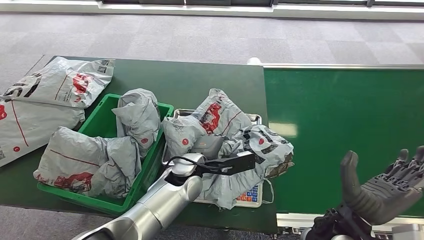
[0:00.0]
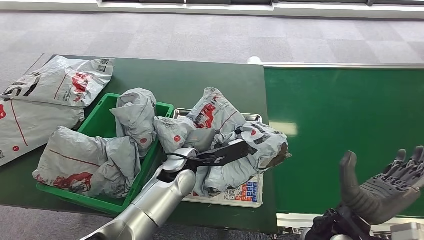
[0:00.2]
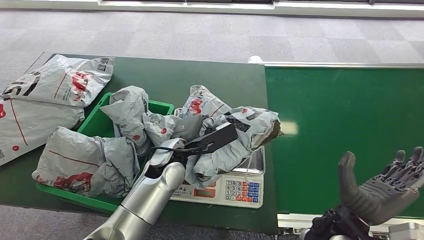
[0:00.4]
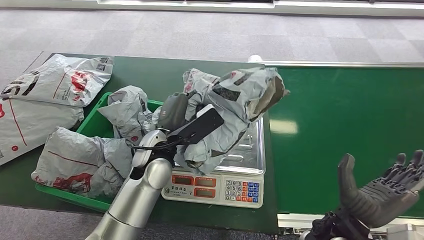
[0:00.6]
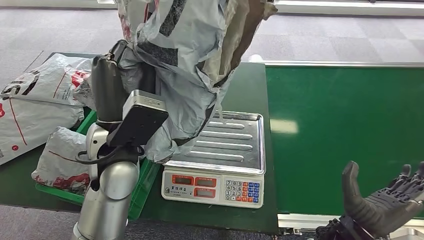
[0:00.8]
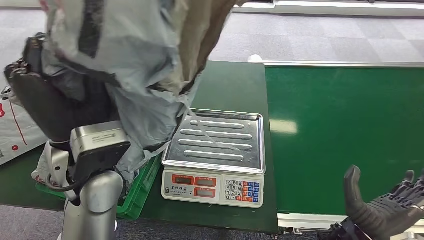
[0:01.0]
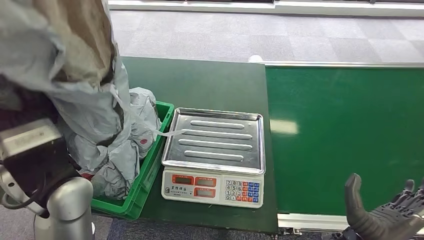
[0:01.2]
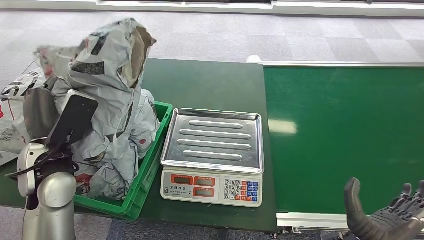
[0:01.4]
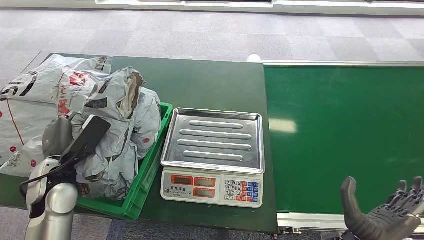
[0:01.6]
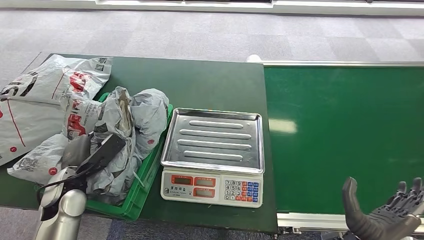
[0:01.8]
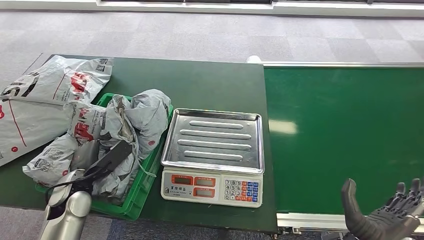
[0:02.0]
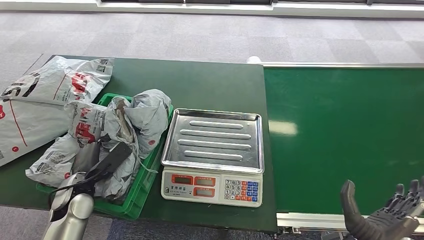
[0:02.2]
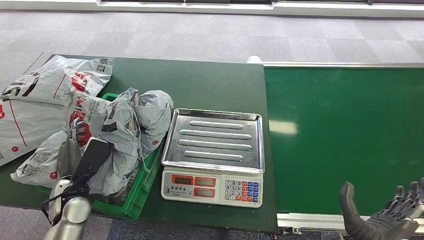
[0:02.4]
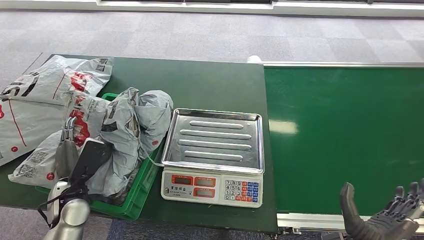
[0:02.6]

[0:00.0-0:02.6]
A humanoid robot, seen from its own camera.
Step, 0:00.0 to 0:01.0: Pick up the package from the inbound machine.
Step, 0:01.2 to 0:02.6: Place the package into the parcel locker.
